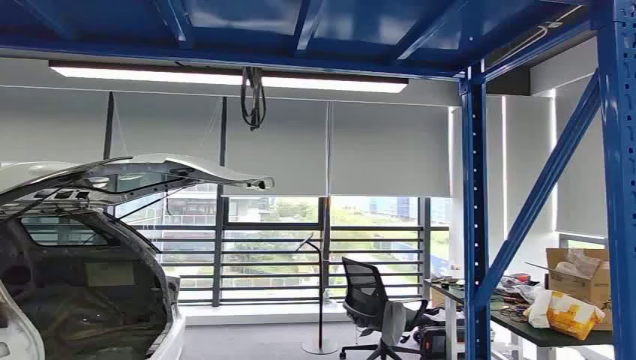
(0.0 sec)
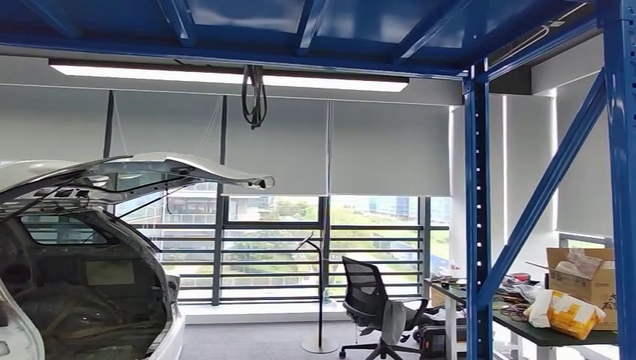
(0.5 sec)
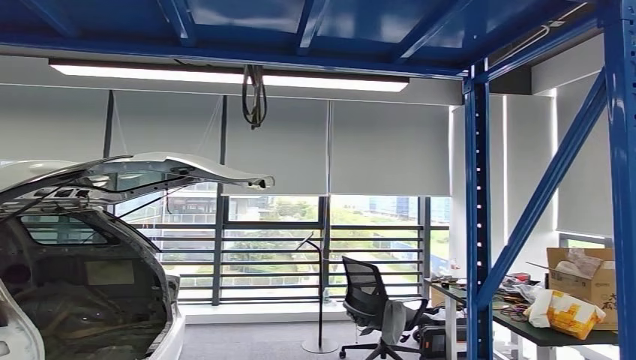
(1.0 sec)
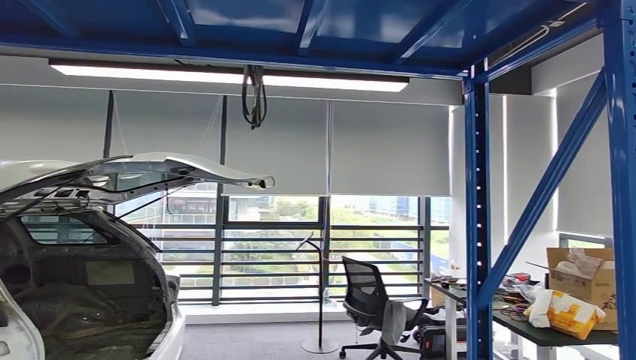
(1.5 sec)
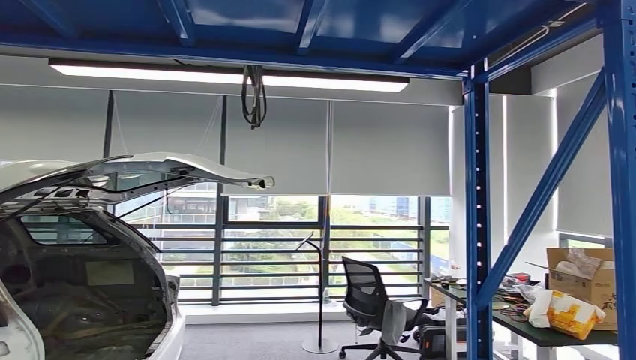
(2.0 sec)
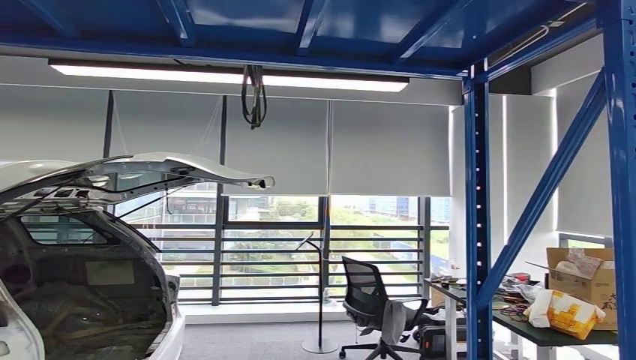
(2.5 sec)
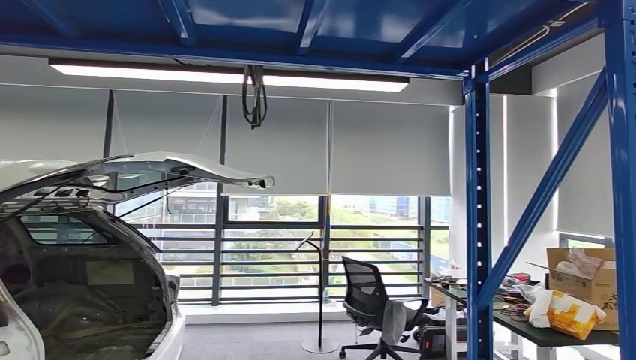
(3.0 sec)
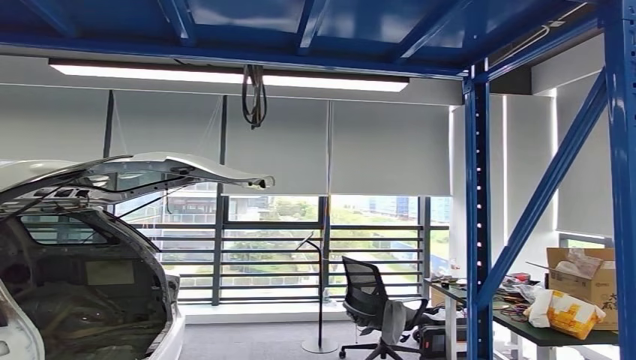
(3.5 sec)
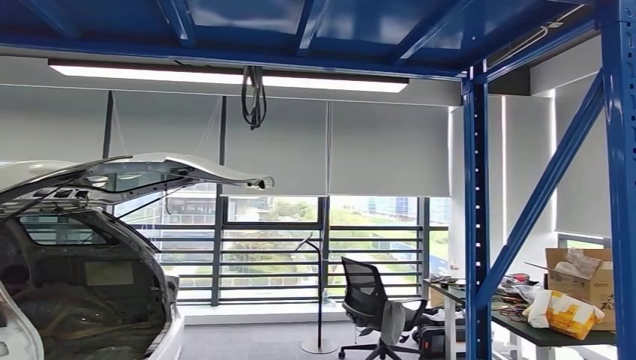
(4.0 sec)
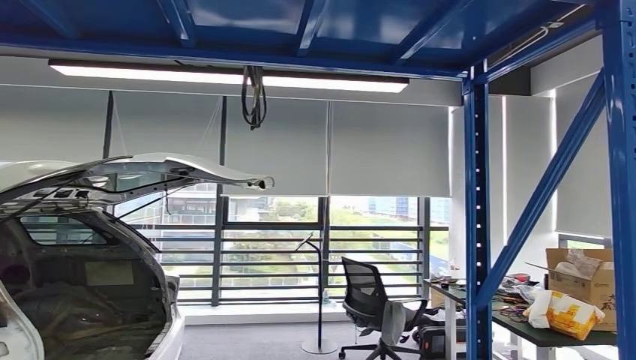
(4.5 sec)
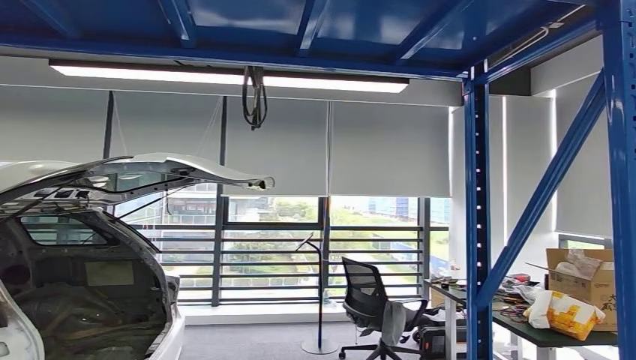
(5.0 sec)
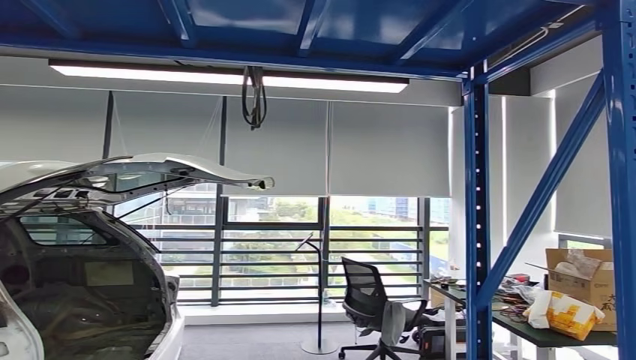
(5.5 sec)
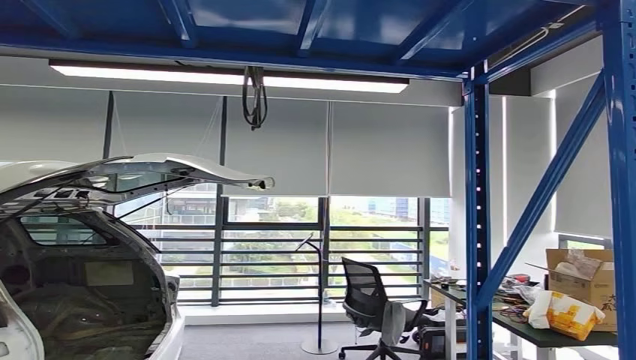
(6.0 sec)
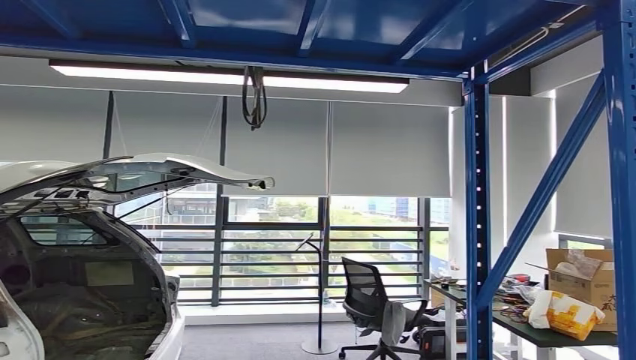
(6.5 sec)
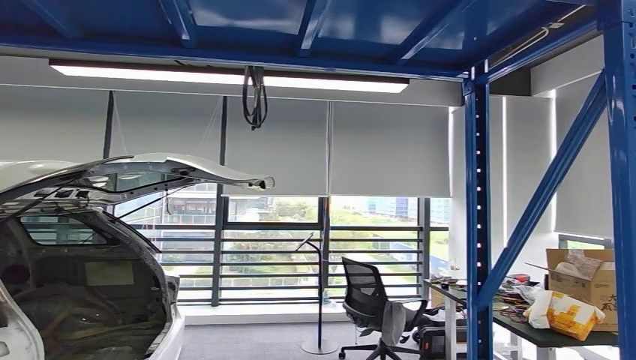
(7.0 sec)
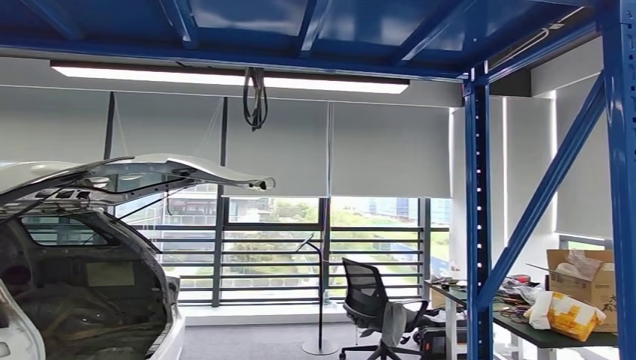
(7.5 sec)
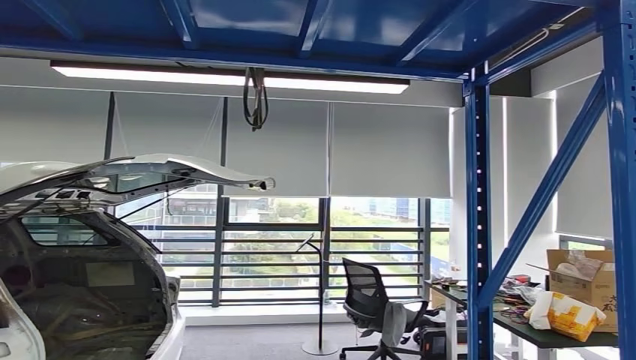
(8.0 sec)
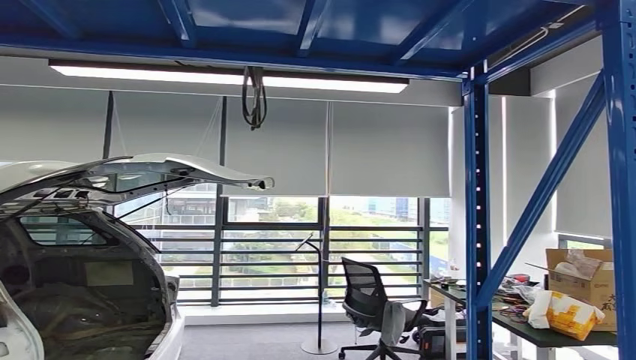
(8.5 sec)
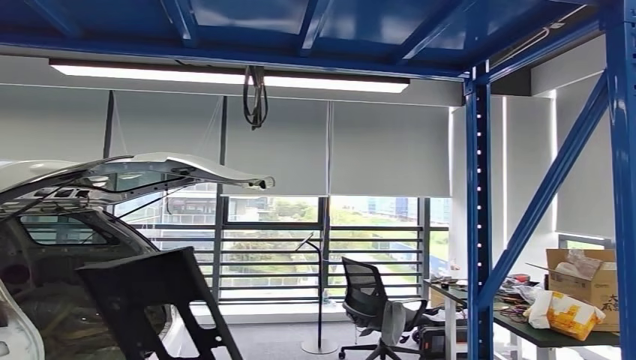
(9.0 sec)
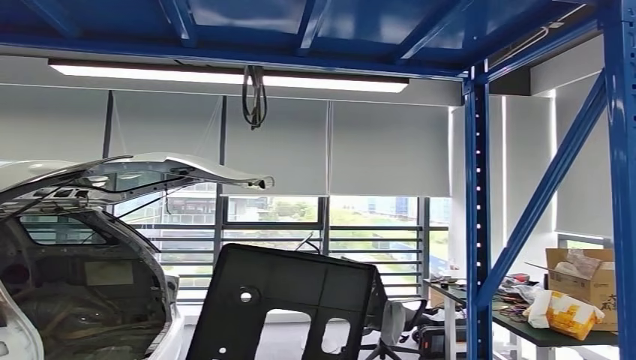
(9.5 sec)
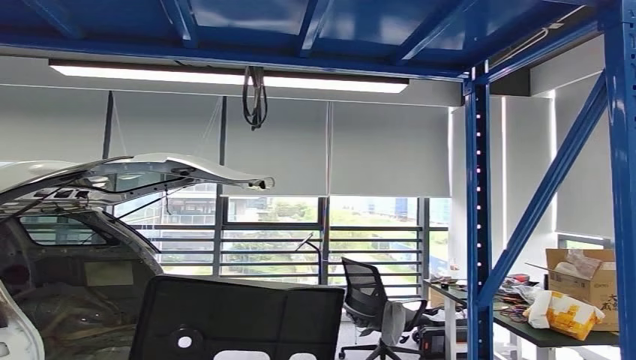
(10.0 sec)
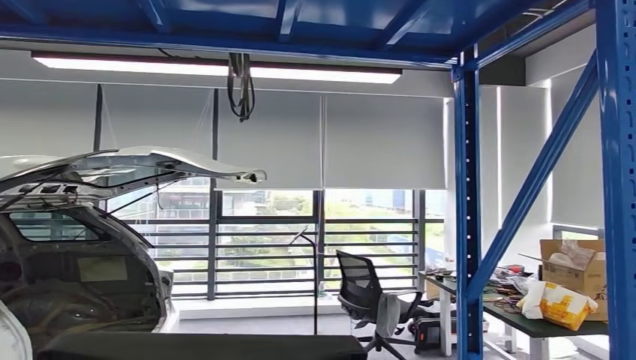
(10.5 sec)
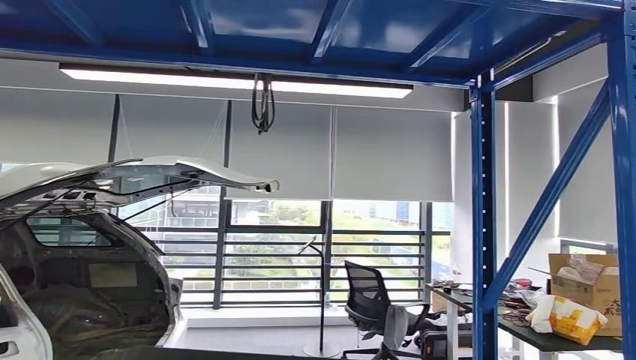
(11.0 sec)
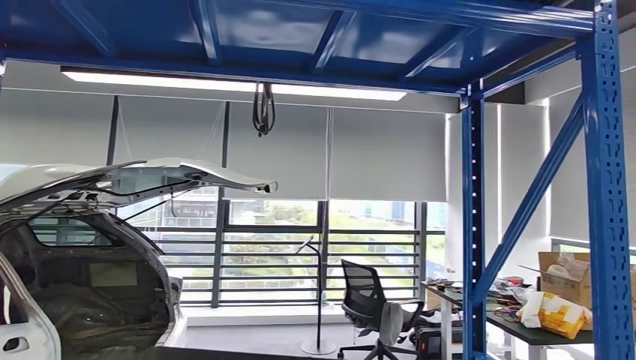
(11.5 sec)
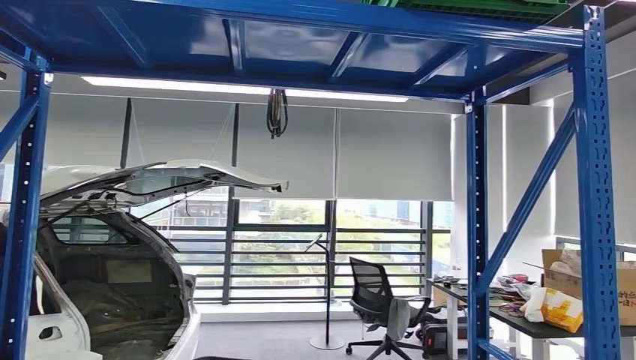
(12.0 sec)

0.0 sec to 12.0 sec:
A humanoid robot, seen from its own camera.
Step, 0.0 sec to 8.5 sec: Pick up the small parts from the shelf.
2.0 sec to 4.0 sec: The right hand ends up about 5 cm from where it was.
4.0 sec to 8.0 sec: The hands make only small movements.
8.0 sec to 10.0 sec: The right hand travels backward, upward and to the left by some 20 cm.

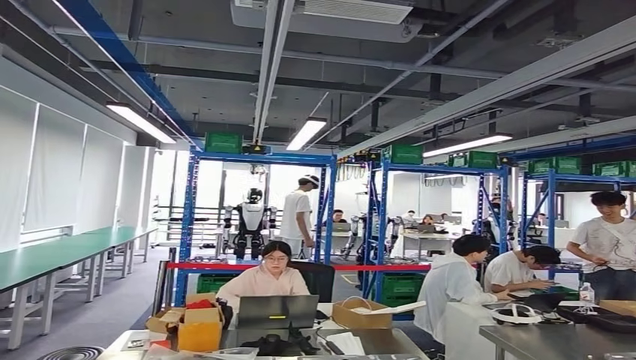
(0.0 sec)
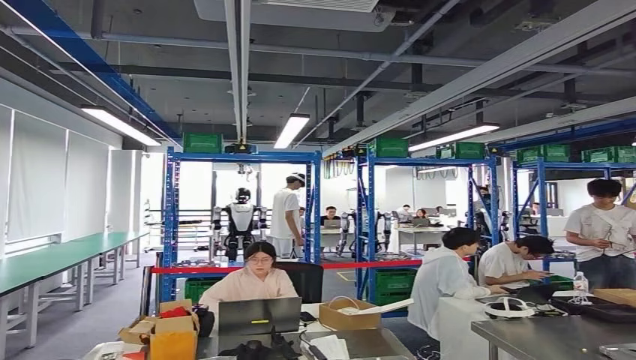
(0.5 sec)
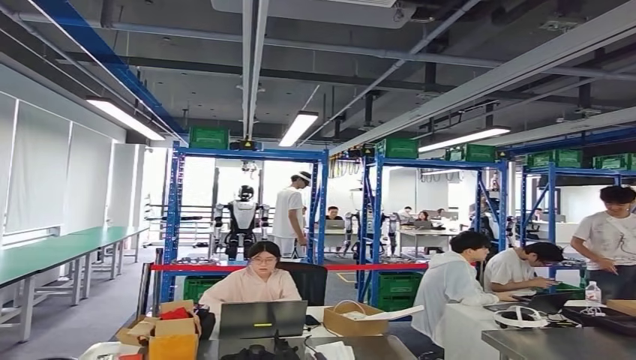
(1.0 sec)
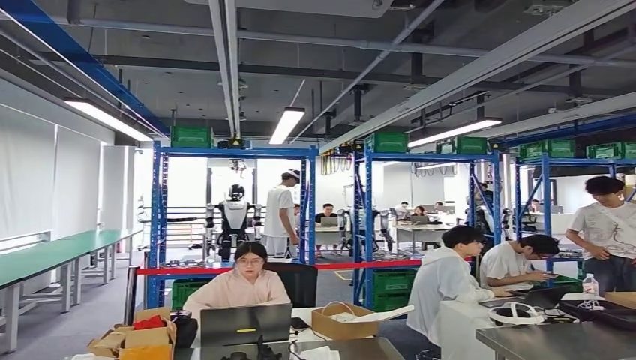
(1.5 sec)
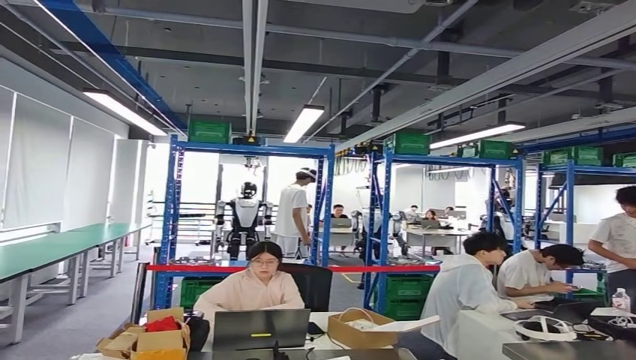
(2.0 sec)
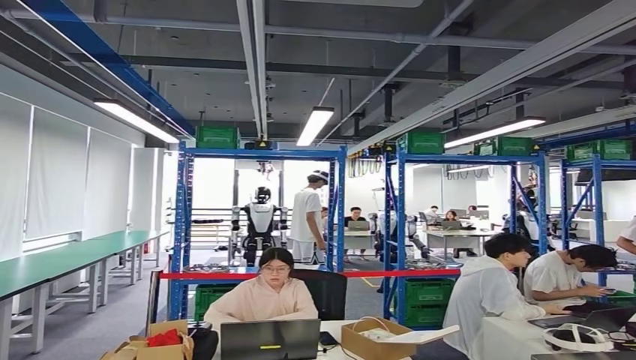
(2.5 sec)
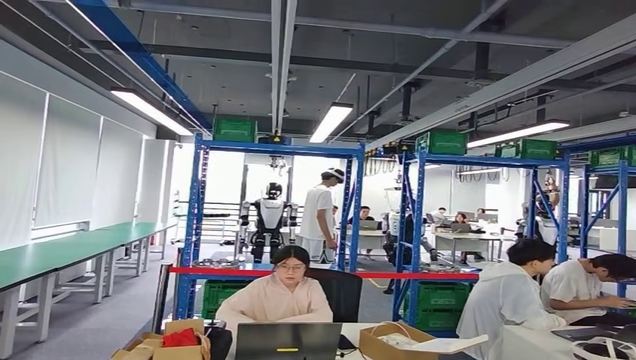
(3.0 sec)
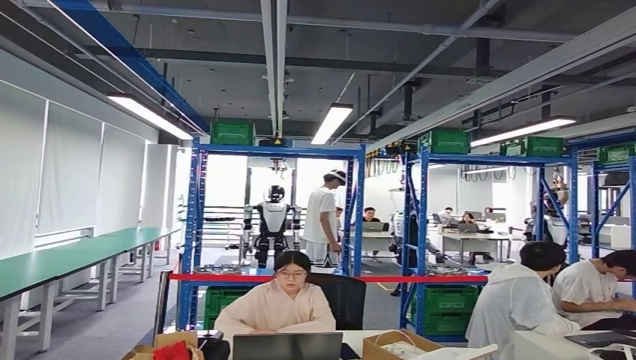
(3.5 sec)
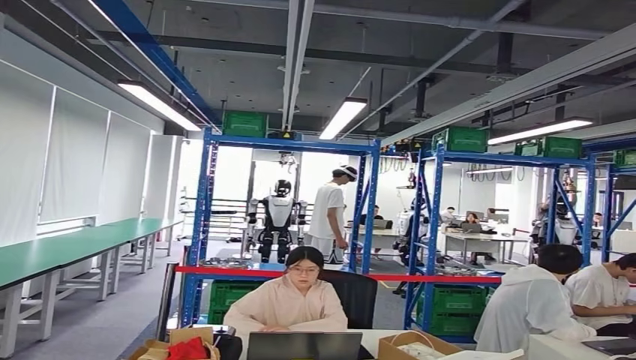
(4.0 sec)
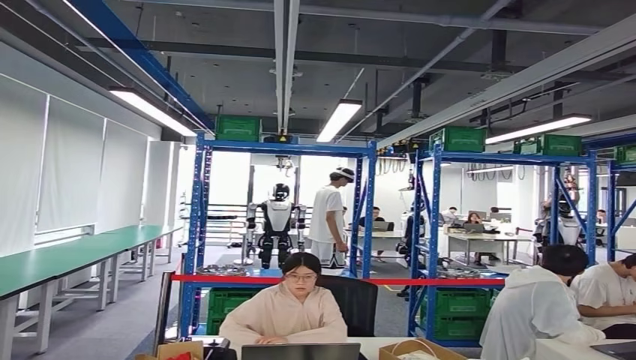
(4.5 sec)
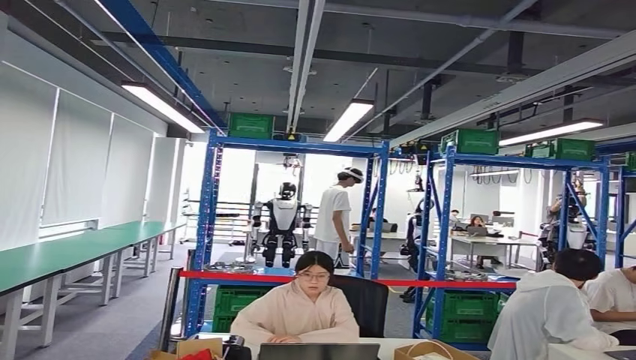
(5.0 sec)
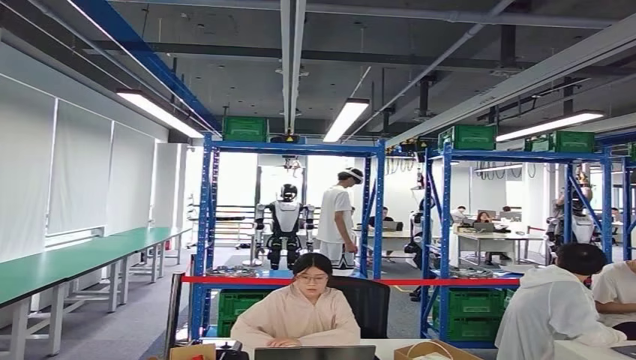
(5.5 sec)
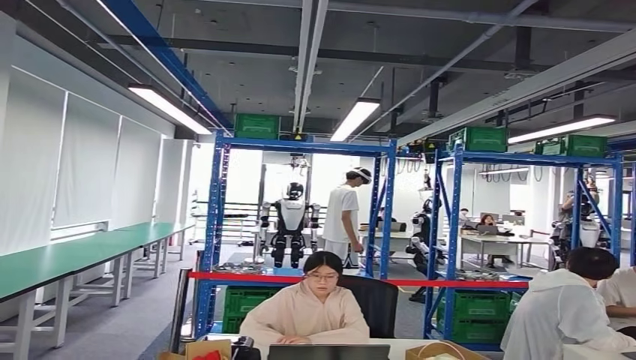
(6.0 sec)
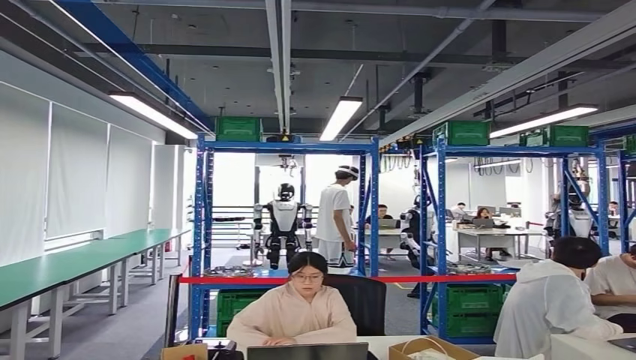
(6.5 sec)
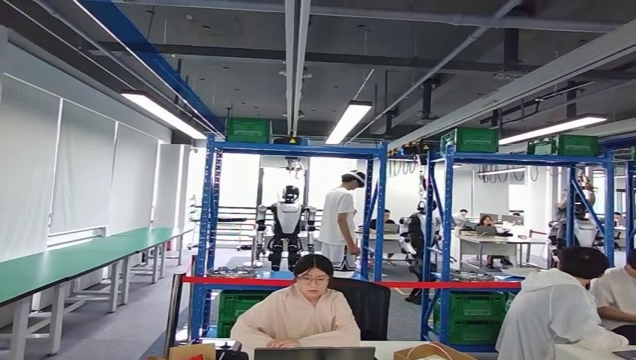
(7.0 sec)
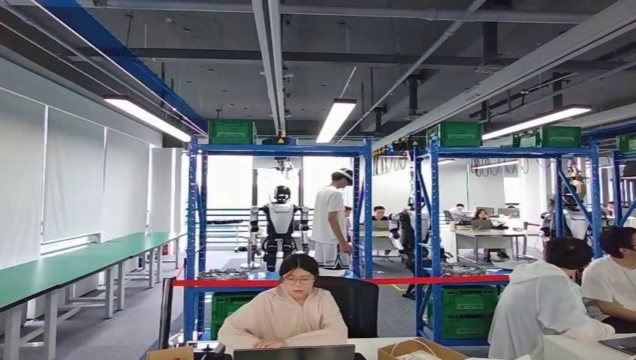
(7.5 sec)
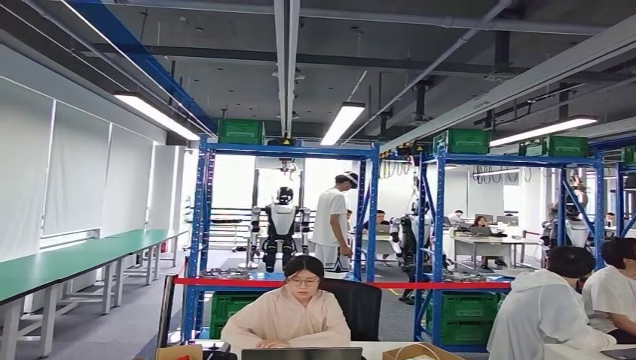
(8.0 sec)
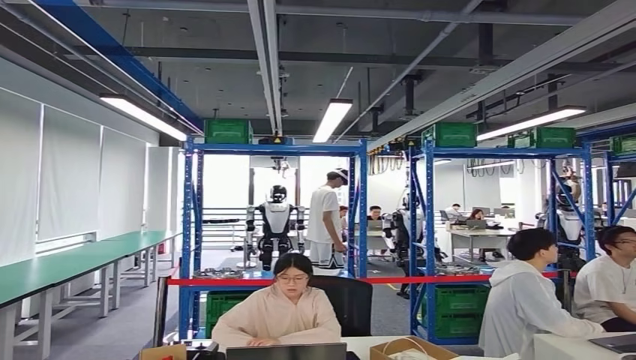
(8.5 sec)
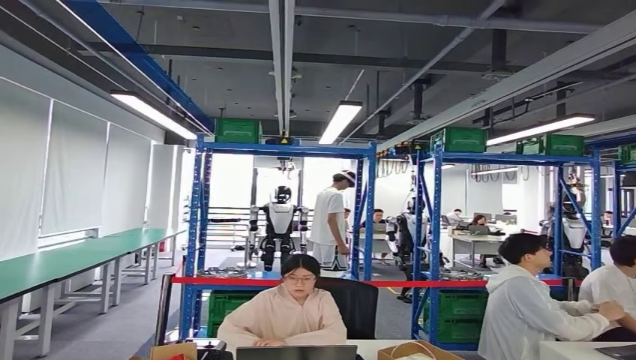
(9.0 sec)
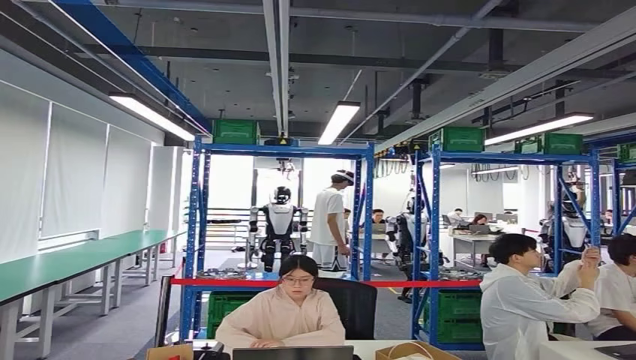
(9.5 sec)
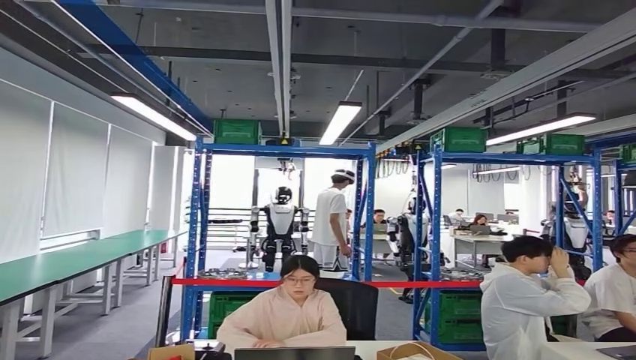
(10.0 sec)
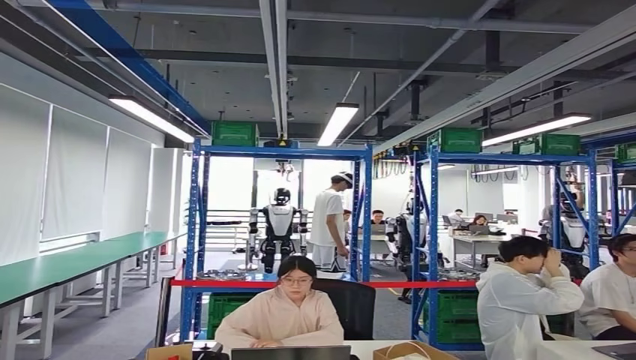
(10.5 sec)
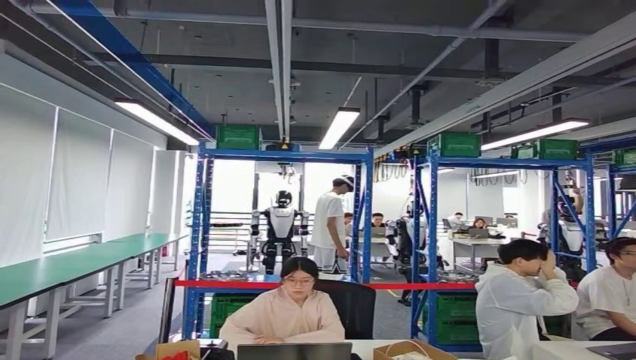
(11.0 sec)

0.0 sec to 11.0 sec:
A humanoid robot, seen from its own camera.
Step, 0.0 sec to 4.0 sec: Move the small parts to the workbench.
Step, 5.0 sec to 9.0 sec: Insert the small parts into the corresponding holes on the workbench.
